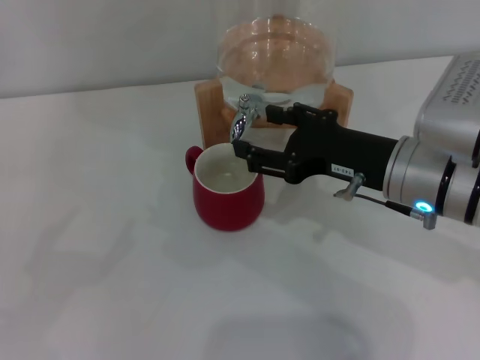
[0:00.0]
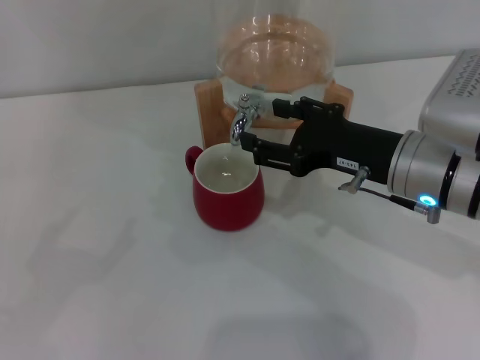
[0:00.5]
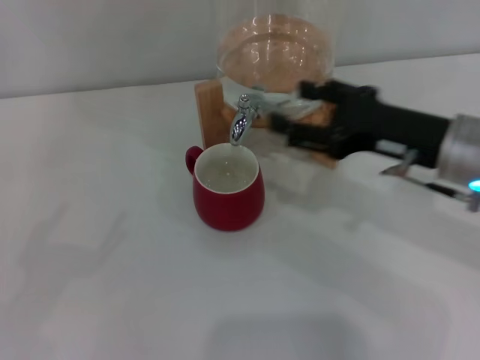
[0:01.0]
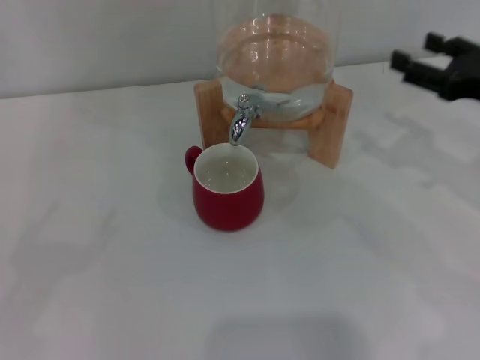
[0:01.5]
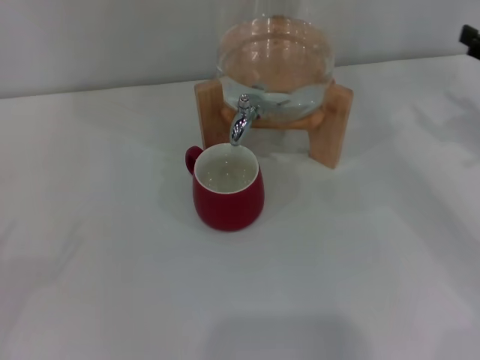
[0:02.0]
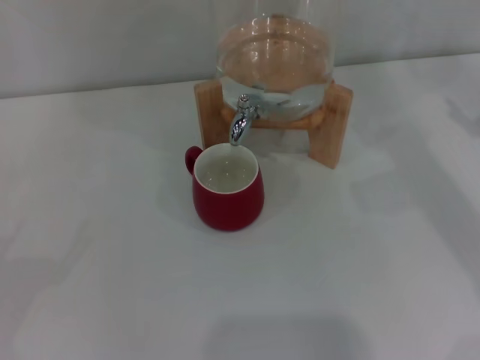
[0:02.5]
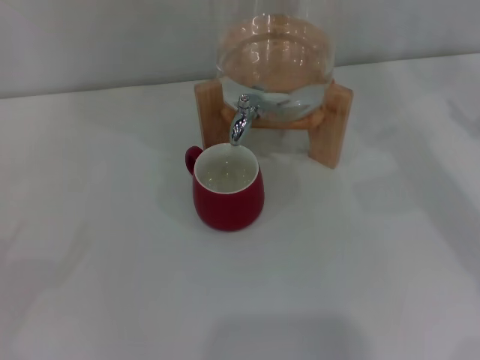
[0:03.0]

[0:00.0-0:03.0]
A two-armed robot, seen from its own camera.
Task of the whole recording: the left gripper pick up the red cup and place it horizontally under the faucet, the right gripper turn on the faucet to fill the cup, and then turn off the faucet.
0:00.0 to 0:01.5: The right gripper goes some 15 cm to the right.
0:01.5 to 0:03.0: The right gripper moves to the right, approximately 10 cm.
